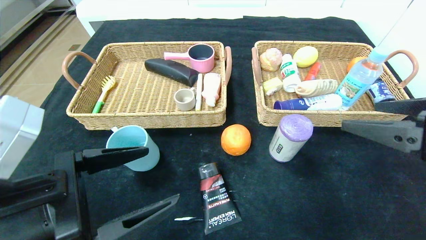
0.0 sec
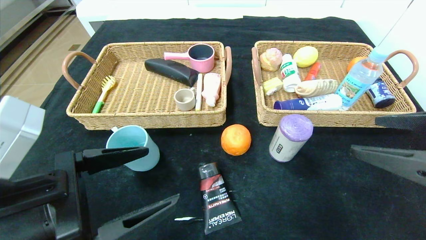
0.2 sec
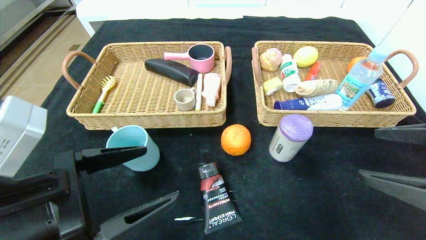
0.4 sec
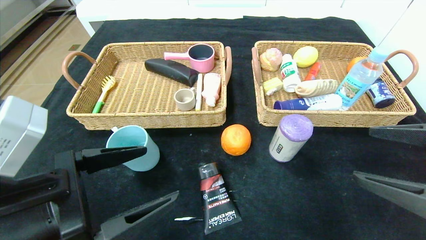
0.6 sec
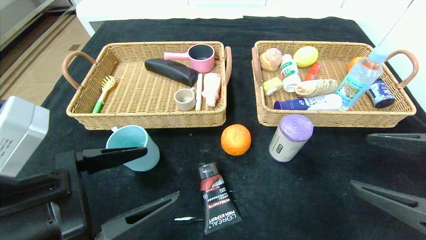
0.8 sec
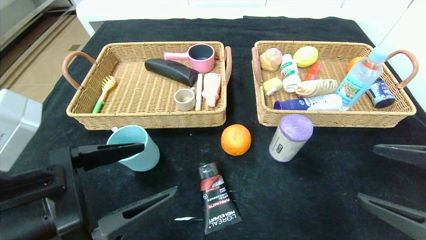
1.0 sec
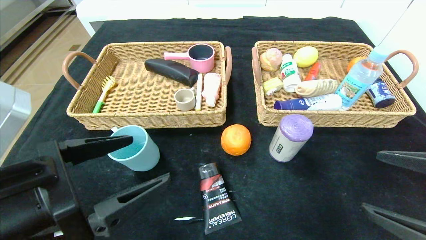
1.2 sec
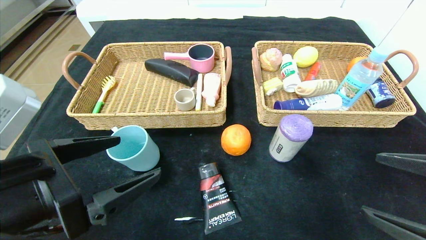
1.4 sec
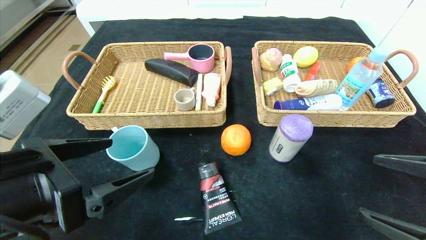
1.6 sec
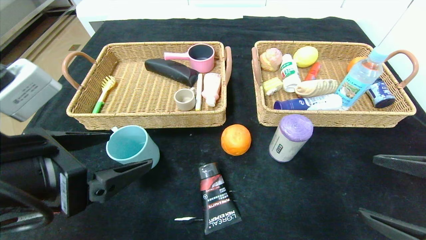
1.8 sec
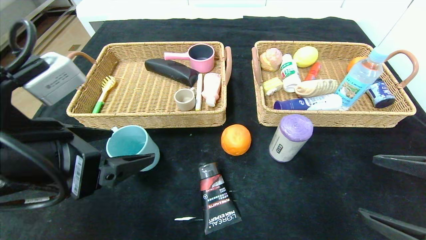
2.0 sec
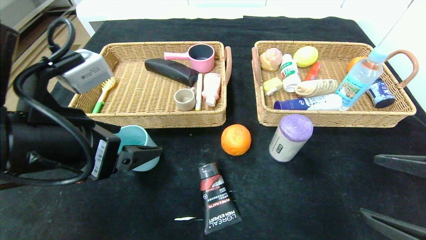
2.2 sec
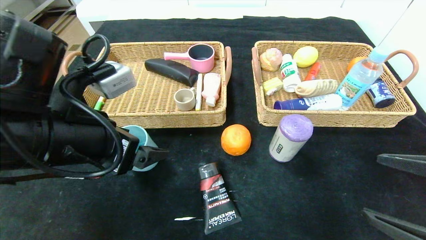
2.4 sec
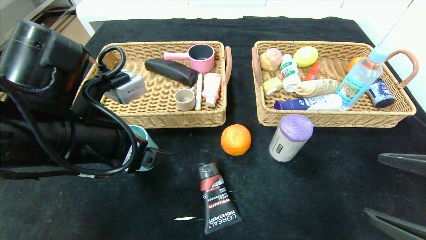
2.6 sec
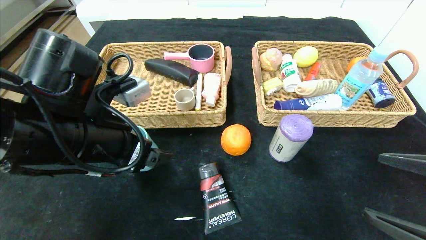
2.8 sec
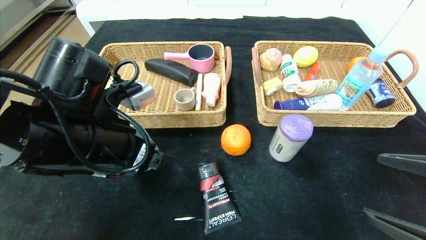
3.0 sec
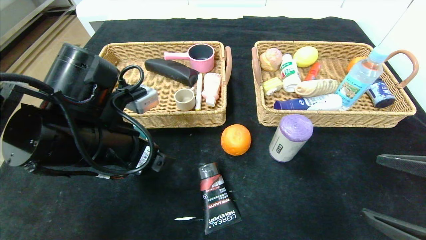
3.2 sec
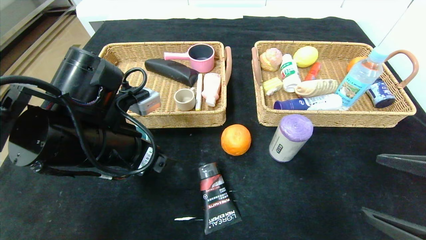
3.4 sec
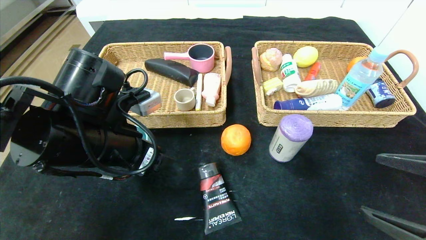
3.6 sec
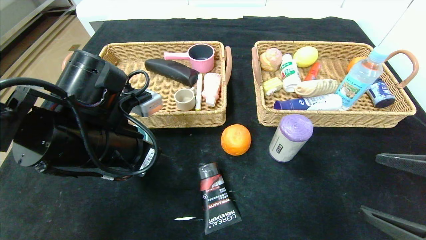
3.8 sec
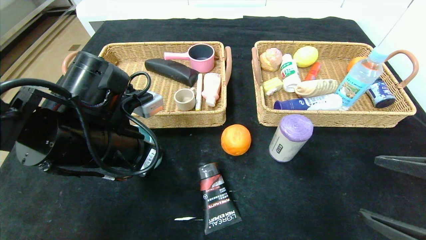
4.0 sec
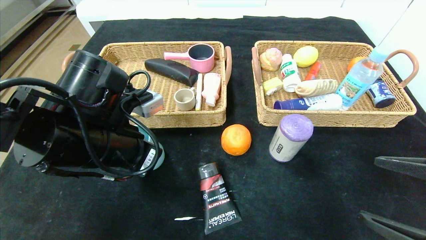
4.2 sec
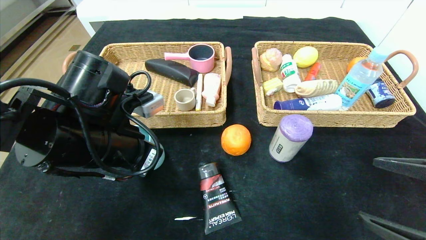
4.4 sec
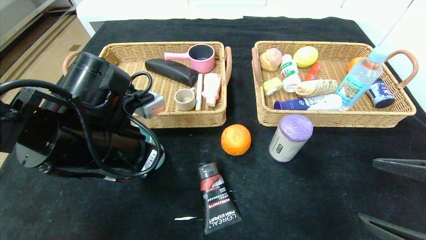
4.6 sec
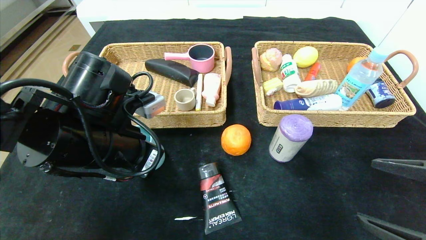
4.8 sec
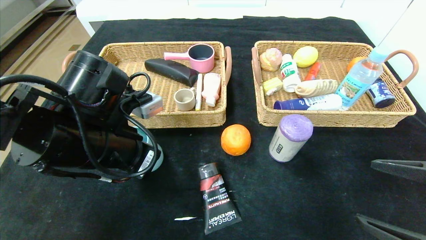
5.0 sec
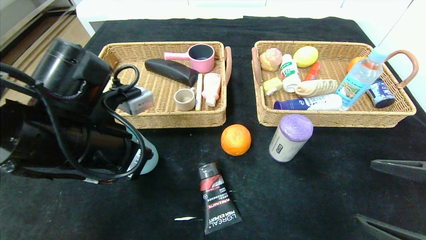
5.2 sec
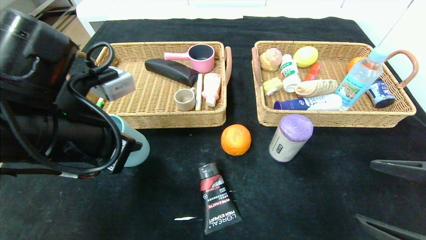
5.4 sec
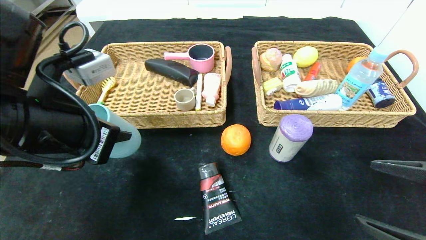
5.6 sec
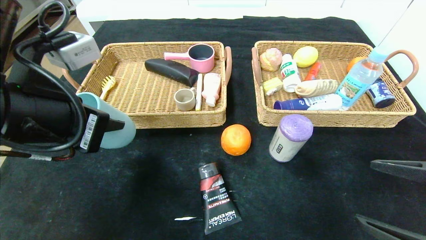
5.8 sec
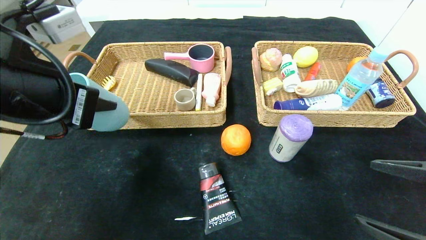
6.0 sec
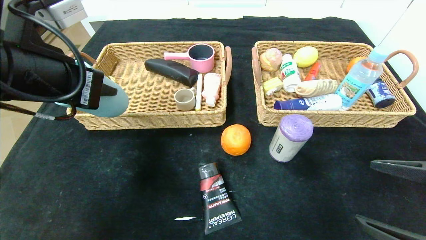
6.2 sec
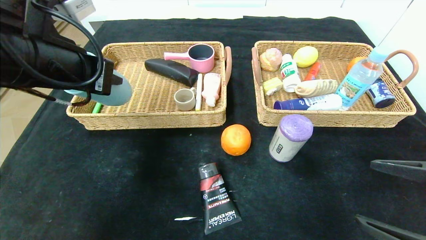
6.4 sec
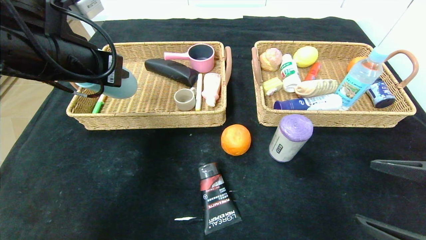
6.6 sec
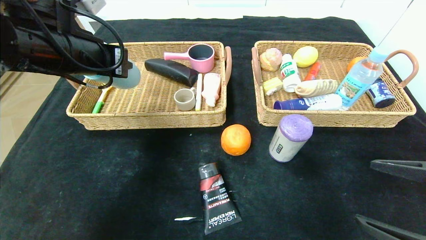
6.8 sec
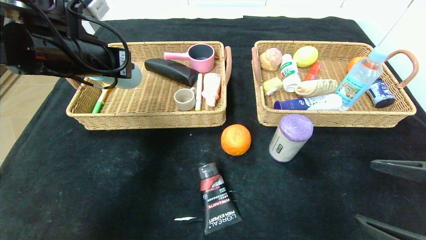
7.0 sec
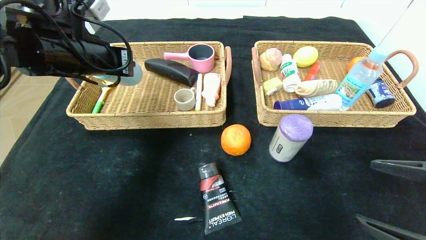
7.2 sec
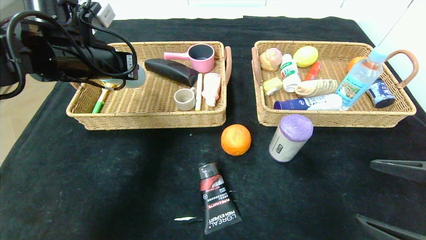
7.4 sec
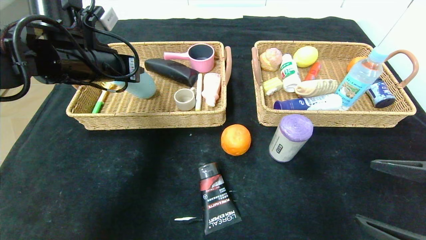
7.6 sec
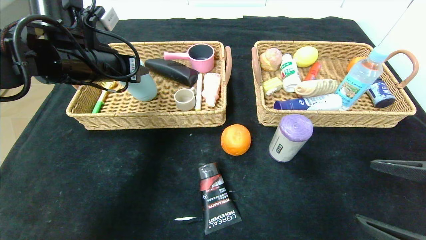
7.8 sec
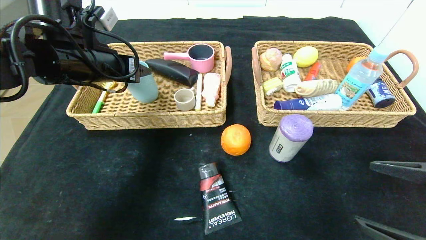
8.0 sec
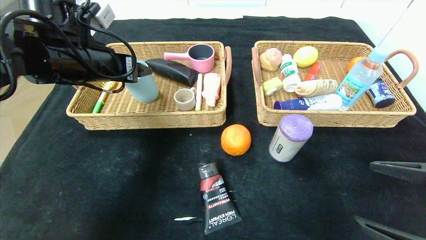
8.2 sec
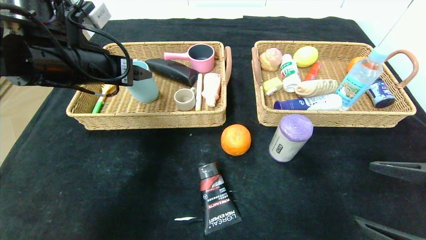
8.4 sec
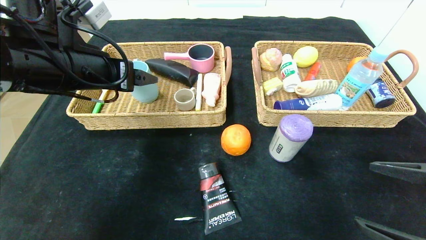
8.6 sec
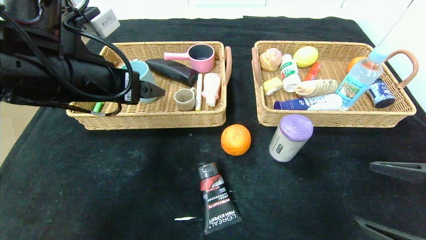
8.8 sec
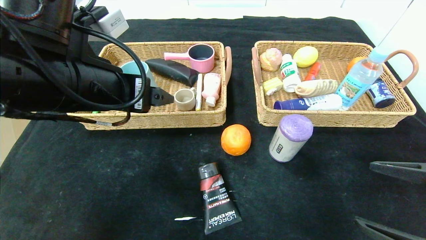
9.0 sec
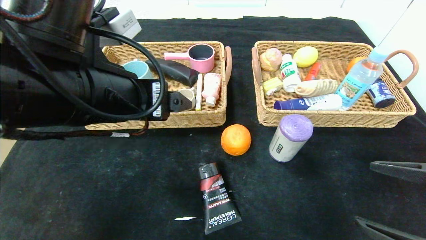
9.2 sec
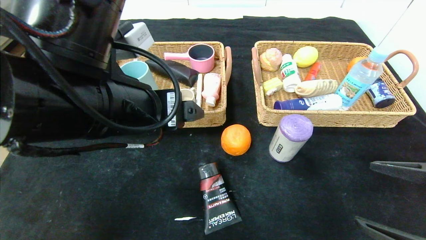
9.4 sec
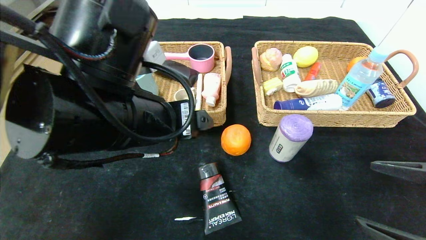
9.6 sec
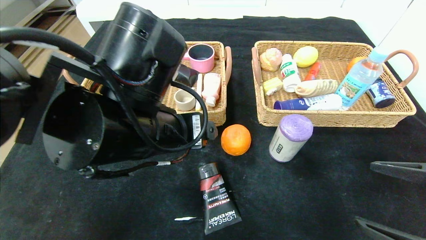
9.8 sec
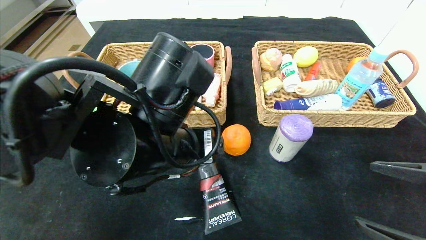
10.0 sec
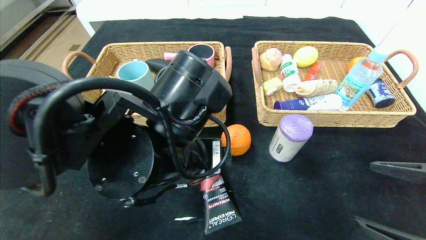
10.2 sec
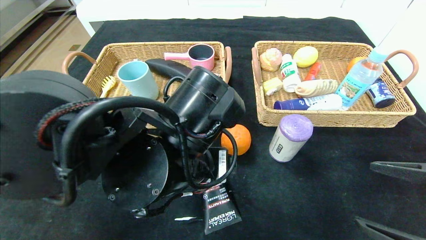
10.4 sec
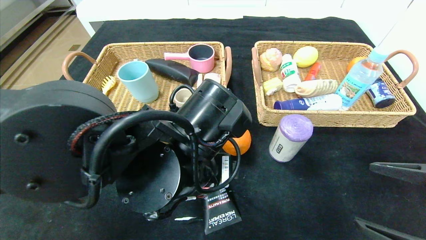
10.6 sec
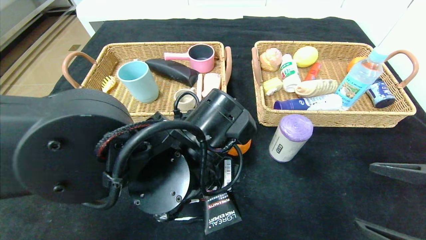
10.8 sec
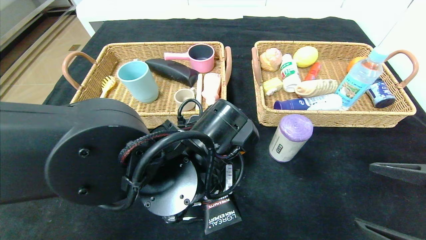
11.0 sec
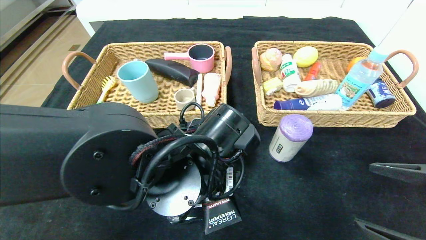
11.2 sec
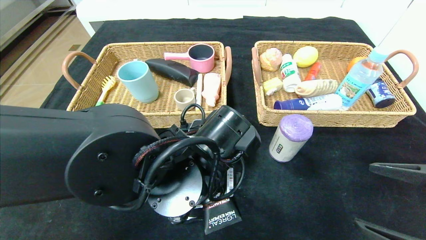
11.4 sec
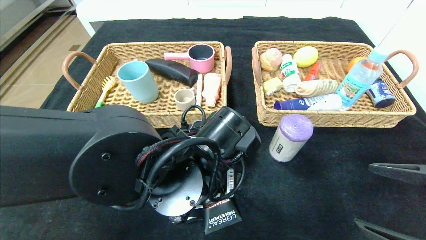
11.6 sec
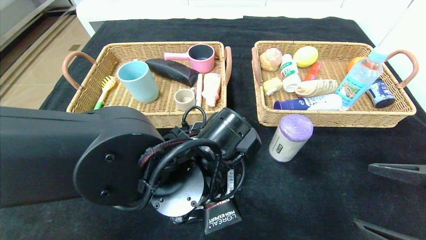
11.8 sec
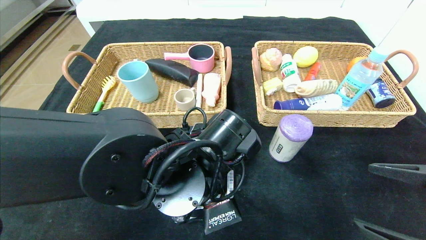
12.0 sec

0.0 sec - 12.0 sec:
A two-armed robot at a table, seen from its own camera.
Step, 0.0 sec - 8.2 sec: Grasp the blue cup and put it in the left basket.
0.0 sec - 1.6 sec: The right gripper travels downward by about 10 cm.
1.6 sec - 3.0 sec: The left gripper travels forward by approximately 10 cm.
3.0 sec - 4.4 sec: The left gripper closes its fingers.
4.4 sec - 6.0 sec: The left gripper shifts approximately 10 cm upward.
6.0 sec - 7.6 sec: The left gripper shifts some 15 cm forward.
7.6 sec - 9.0 sec: The left gripper goes approximately 10 cm backward and to the right, and opens.
9.0 sec - 10.4 sec: The left gripper is displaced to the right and downward by approximately 15 cm.
10.4 sec - 12.0 sec: The left gripper moves some 5 cm.

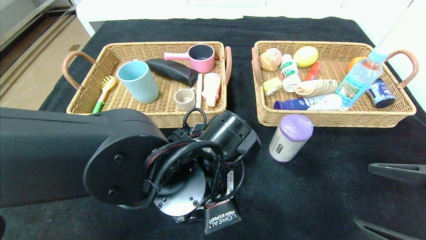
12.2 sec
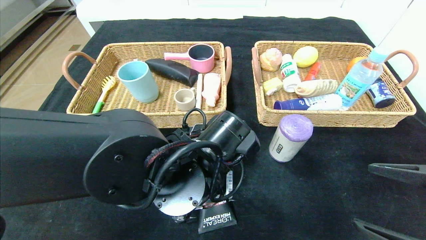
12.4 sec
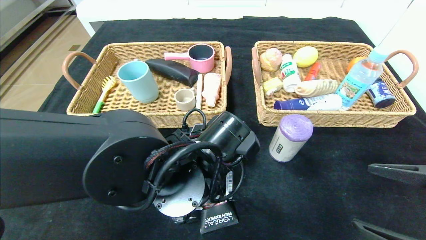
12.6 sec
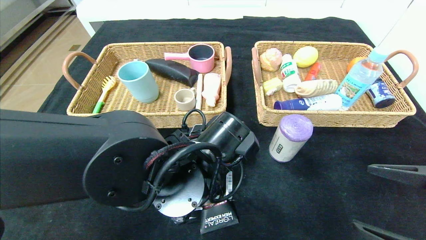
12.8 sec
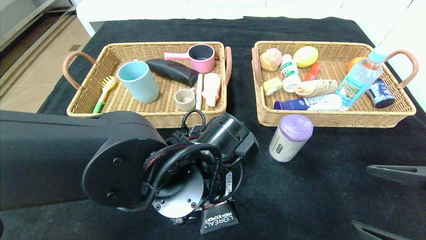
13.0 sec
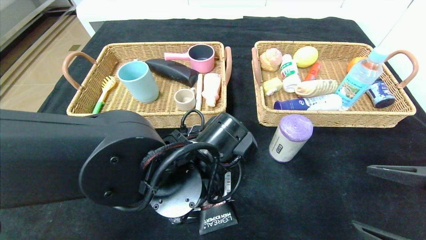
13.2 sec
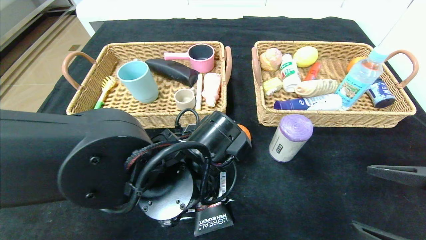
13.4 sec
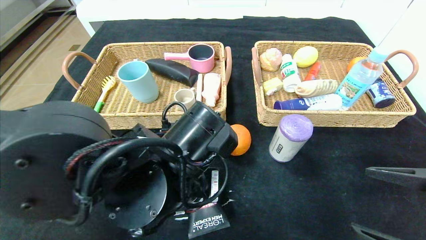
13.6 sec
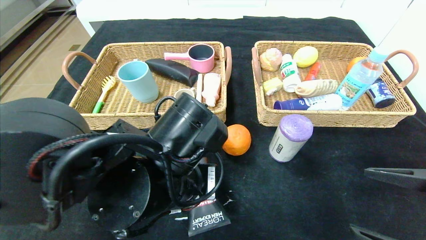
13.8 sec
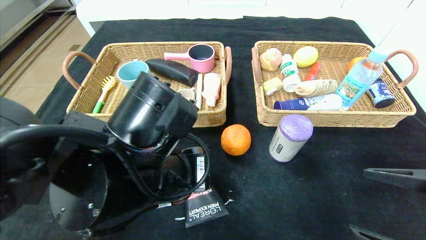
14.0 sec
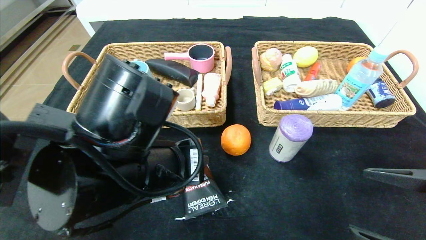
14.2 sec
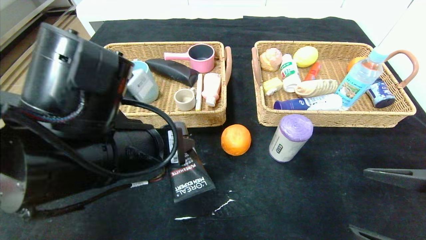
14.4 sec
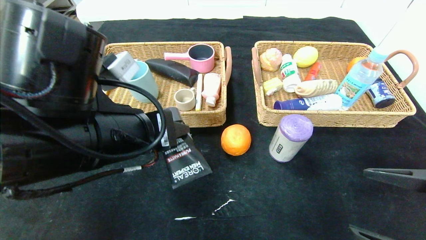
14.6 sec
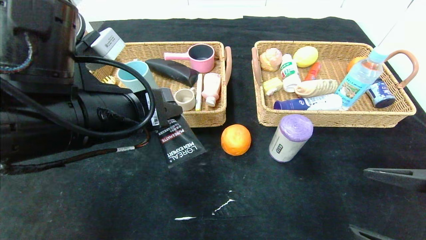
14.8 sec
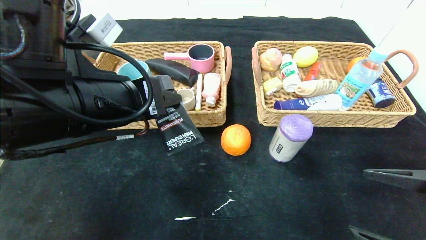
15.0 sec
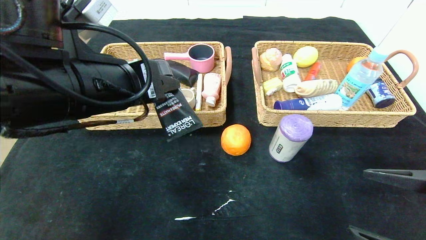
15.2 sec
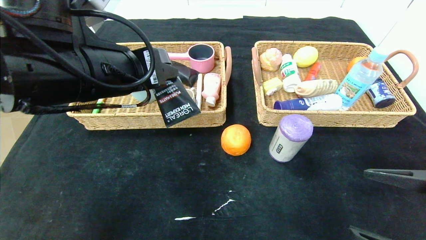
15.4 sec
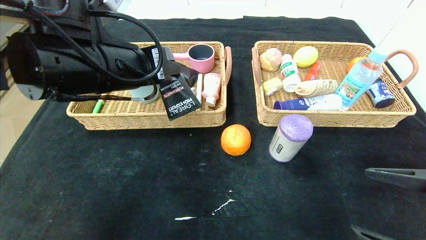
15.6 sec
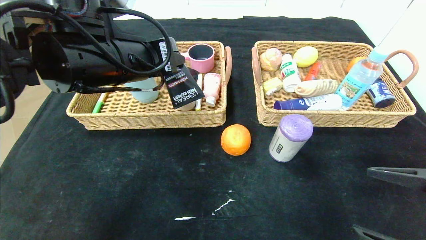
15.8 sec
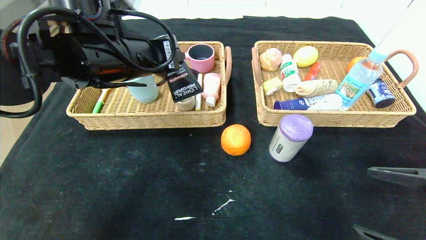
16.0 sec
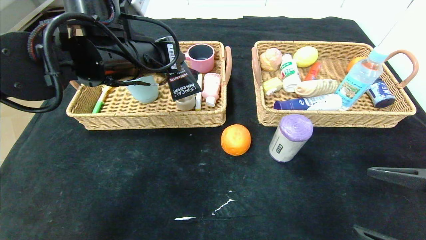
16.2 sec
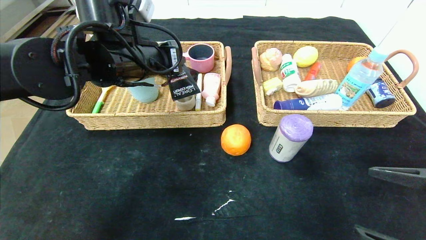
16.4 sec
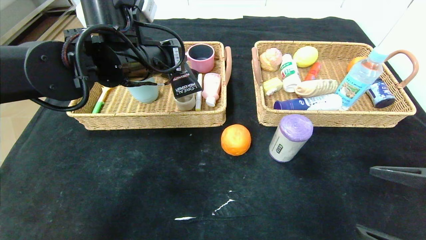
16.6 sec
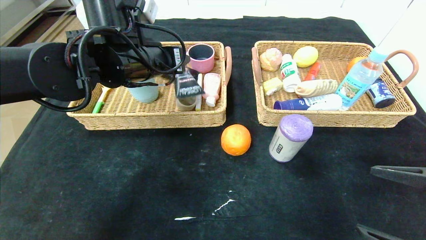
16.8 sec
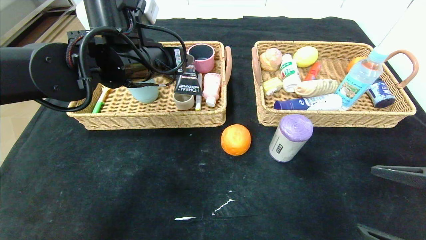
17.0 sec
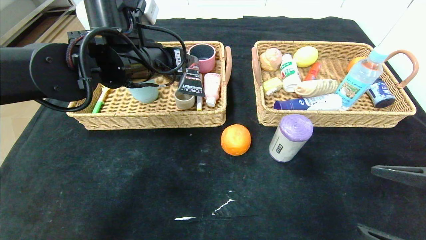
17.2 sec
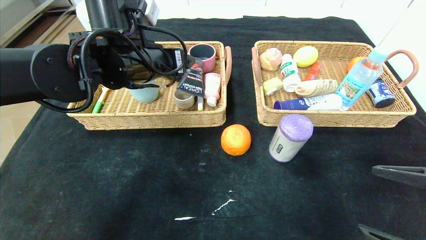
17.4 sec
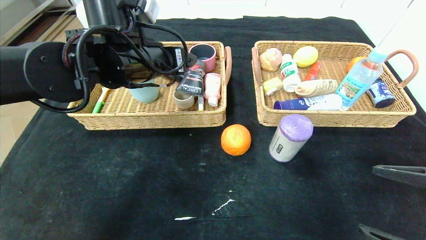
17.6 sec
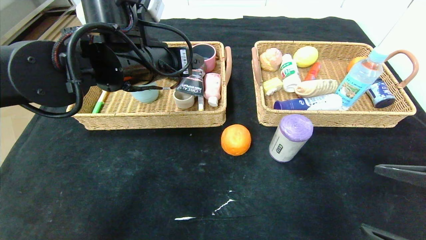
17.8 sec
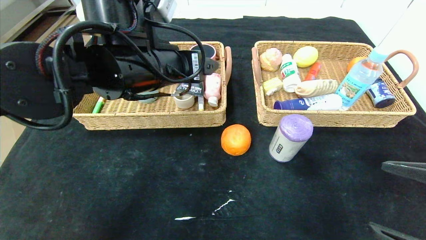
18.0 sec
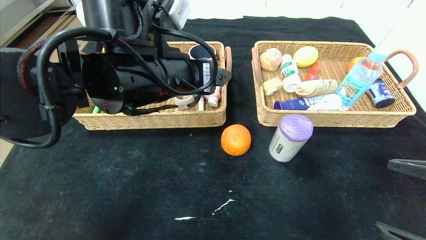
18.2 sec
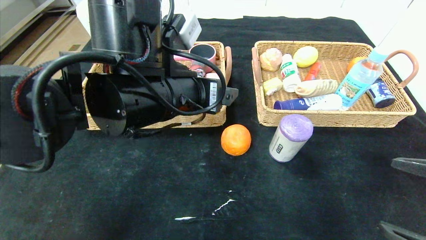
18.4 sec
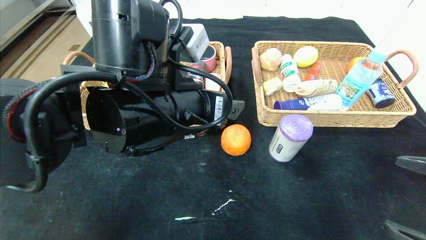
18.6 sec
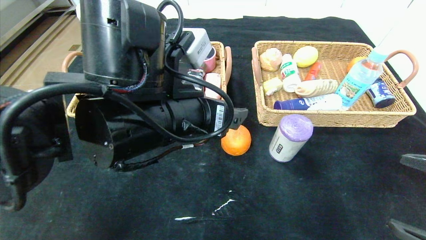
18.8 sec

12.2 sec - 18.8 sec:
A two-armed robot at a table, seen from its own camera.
Step, 12.2 sec - 17.2 sec: Grasp the soft cleanser and put it in the left basket.
12.2 sec - 13.8 sec: The left gripper shifts by some 5 cm.
13.8 sec - 15.4 sec: The left gripper is displaced upward, to the left and forward by approximately 15 cm.
15.4 sec - 17.2 sec: The left gripper heads forward, covering roughly 10 cm, and opens its fingers.
17.2 sec - 18.8 sec: The left gripper travels backward and to the right by about 15 cm.
